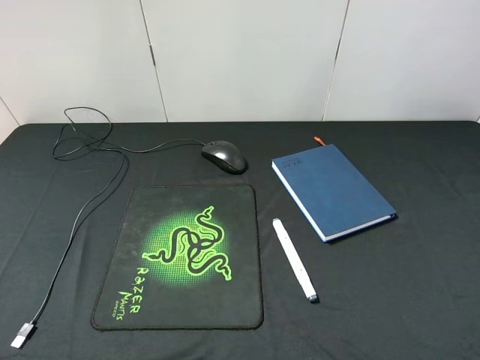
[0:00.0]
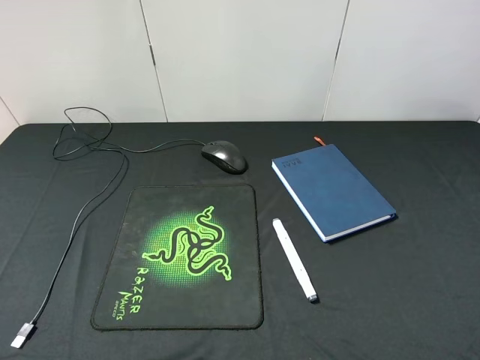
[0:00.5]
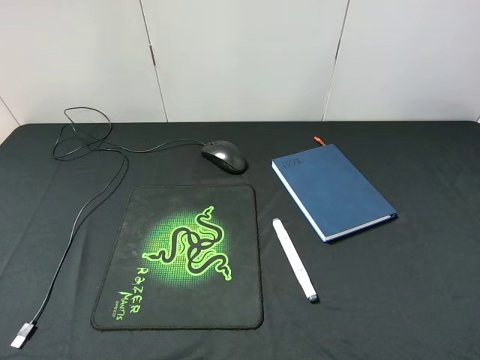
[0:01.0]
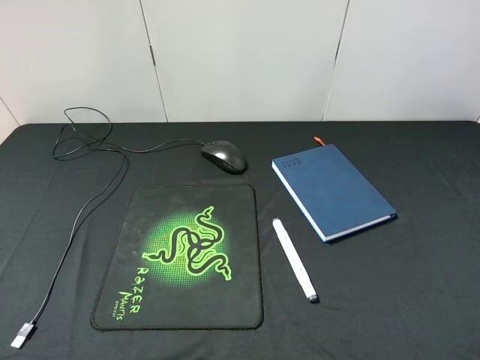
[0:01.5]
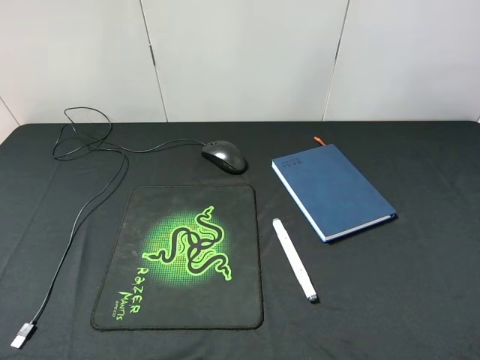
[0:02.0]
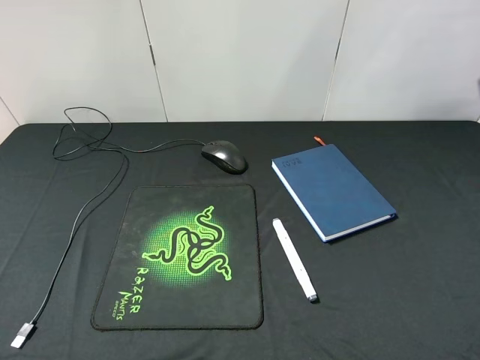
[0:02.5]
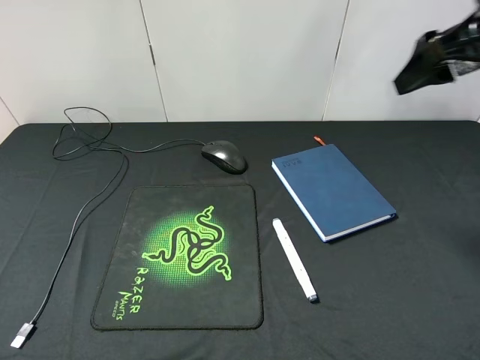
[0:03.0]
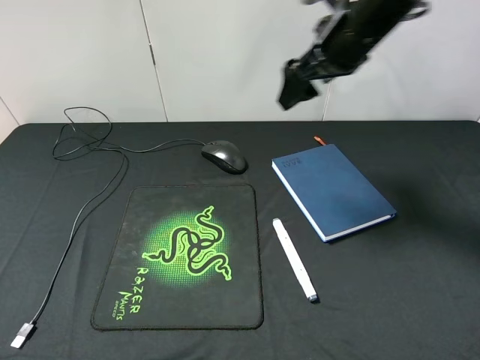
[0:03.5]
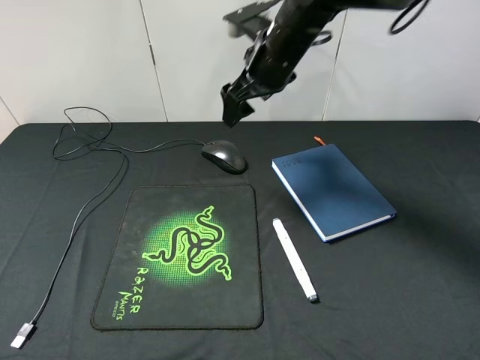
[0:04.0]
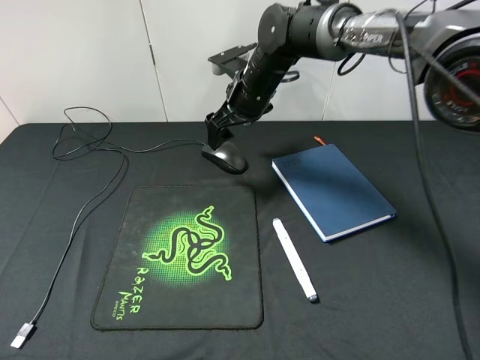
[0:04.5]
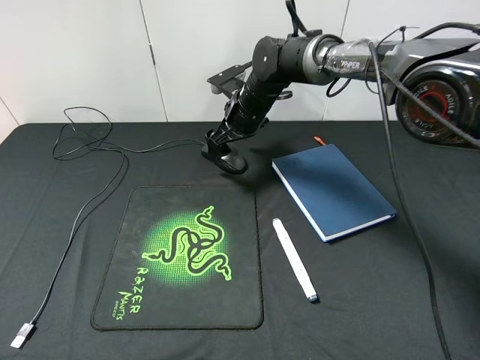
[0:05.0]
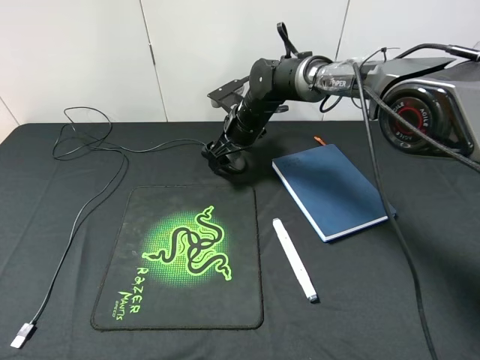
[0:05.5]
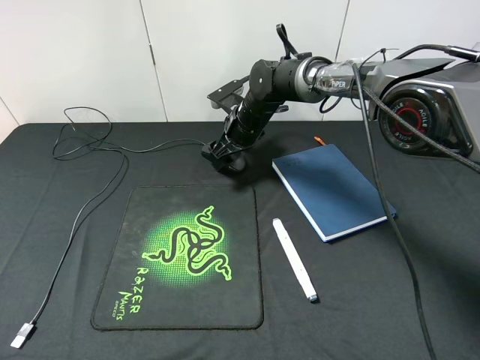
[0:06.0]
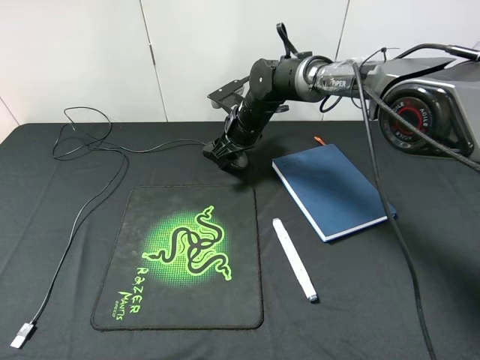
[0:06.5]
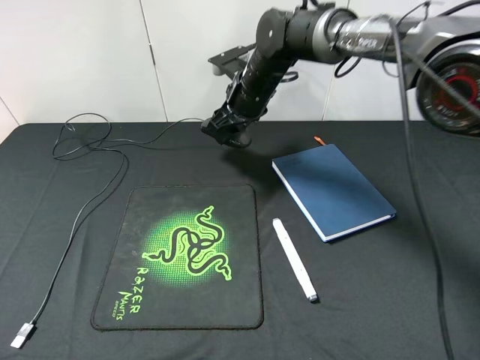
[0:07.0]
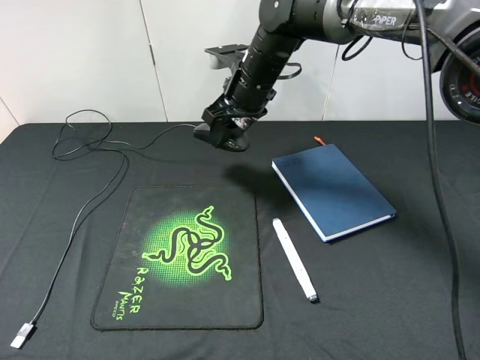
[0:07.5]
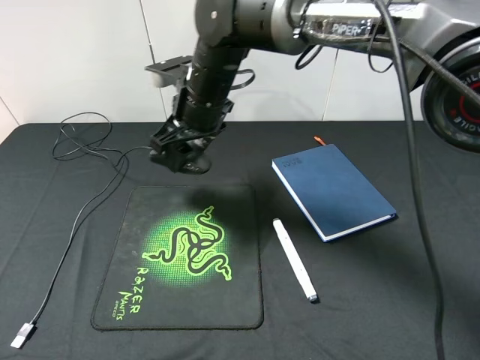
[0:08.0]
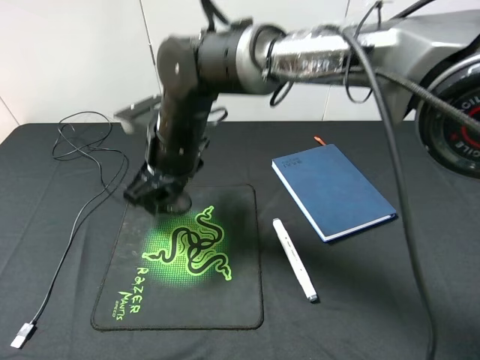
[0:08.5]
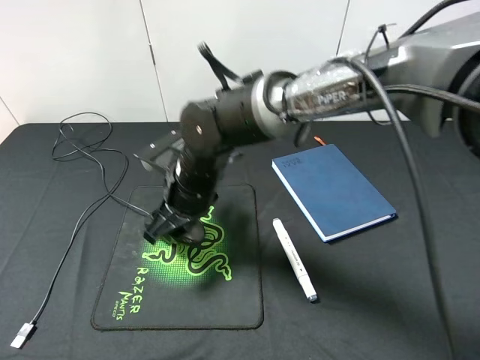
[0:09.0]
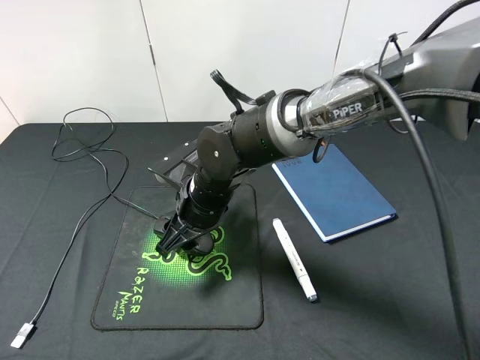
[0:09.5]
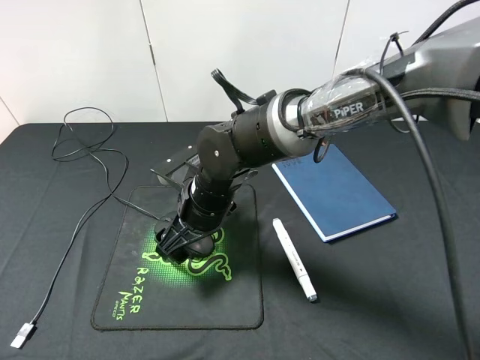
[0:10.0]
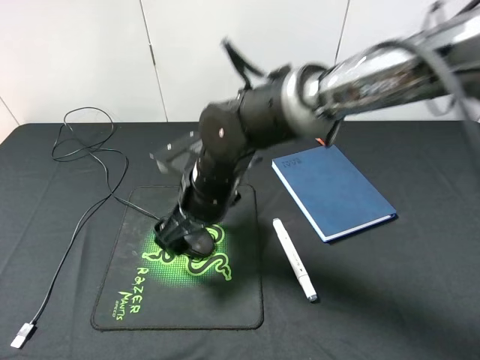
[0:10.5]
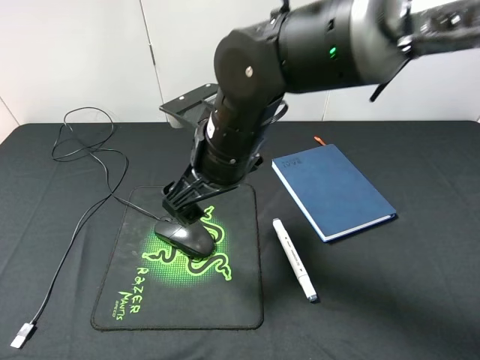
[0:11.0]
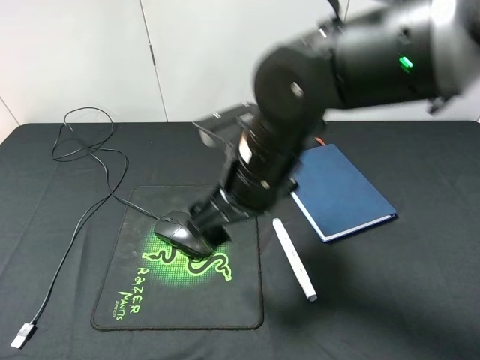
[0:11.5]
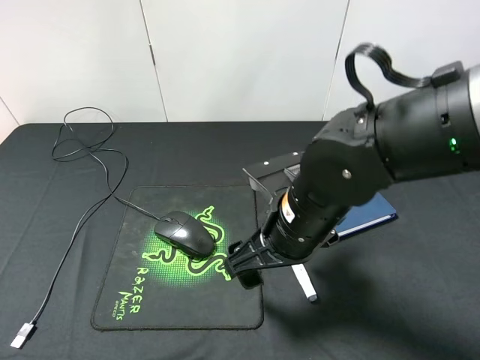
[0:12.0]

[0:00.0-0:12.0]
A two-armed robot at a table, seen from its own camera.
Step, 0:00.0 to 0:06.5: Pick up the mouse with right gripper.
Step, 0:07.0 to 0:10.5: Place the mouse on the mouse pad with right gripper.
0:02.0 to 0:04.0: The right gripper moves forward and to the left, some 40 cm.
0:04.0 to 0:06.0: The right gripper heads downward, covering approximately 15 cm.
0:06.0 to 0:08.0: The right gripper shifts approximately 15 cm backward, upward and to the left.
0:08.0 to 0:10.0: The right gripper moves downward and backward, about 15 cm, and opens its fingers.
0:10.0 to 0:12.0: The right gripper goes roughly 15 cm to the right, backward and upward.

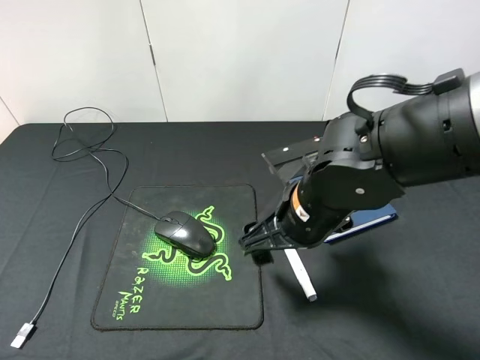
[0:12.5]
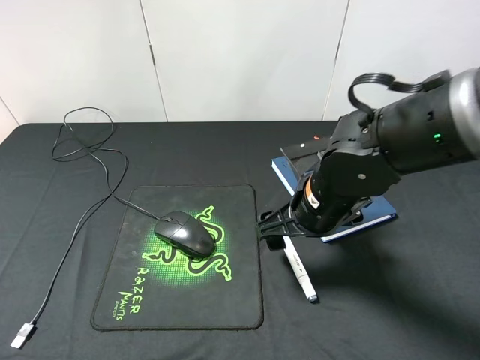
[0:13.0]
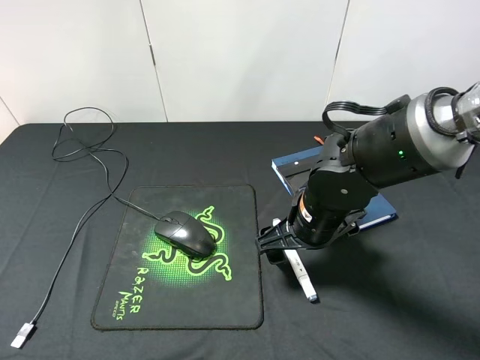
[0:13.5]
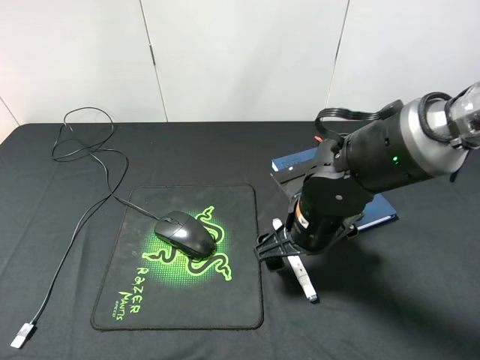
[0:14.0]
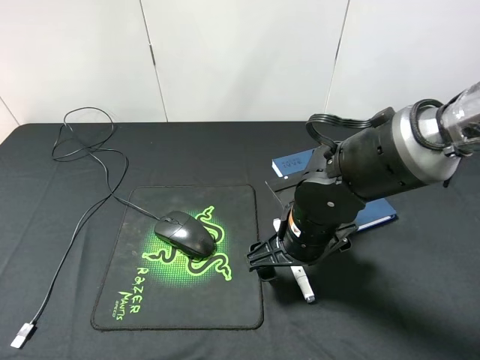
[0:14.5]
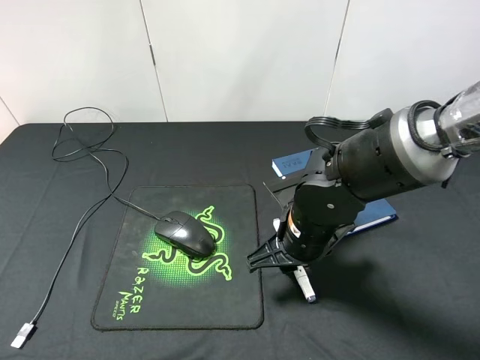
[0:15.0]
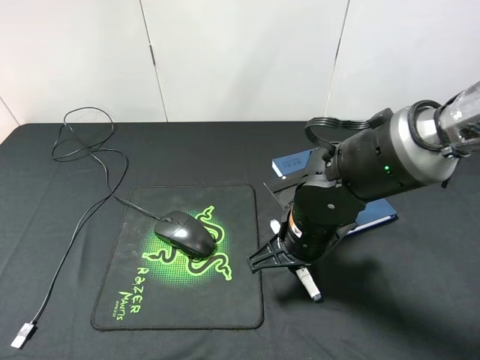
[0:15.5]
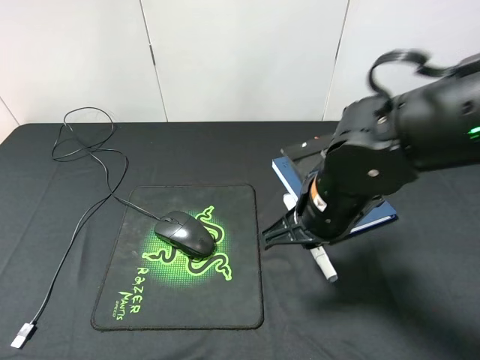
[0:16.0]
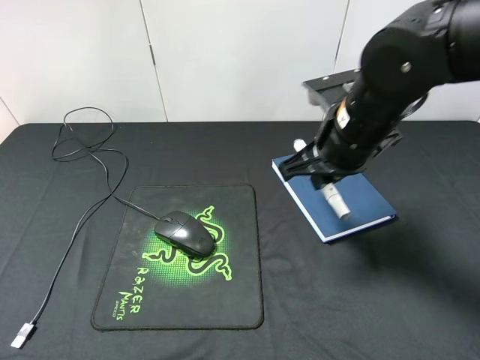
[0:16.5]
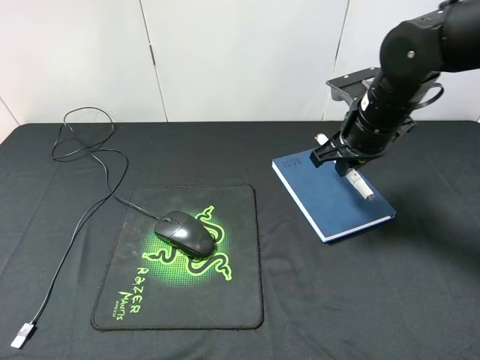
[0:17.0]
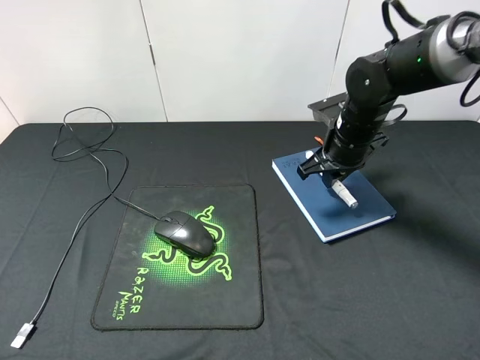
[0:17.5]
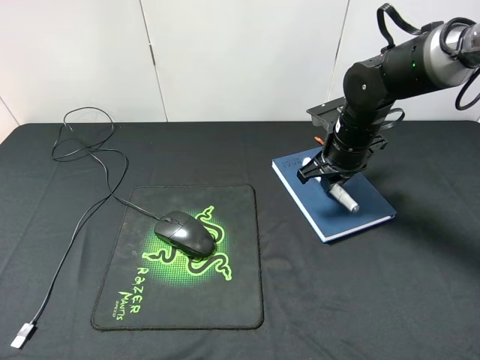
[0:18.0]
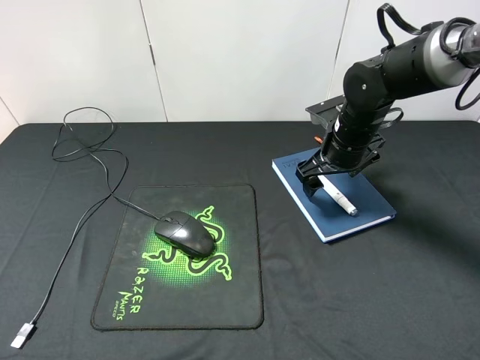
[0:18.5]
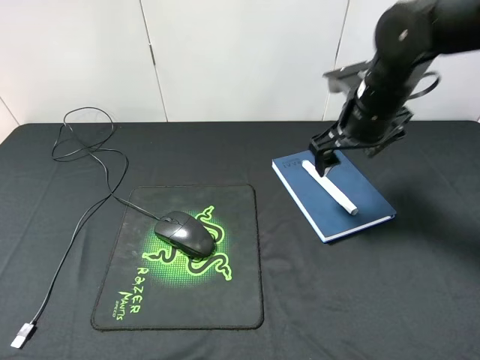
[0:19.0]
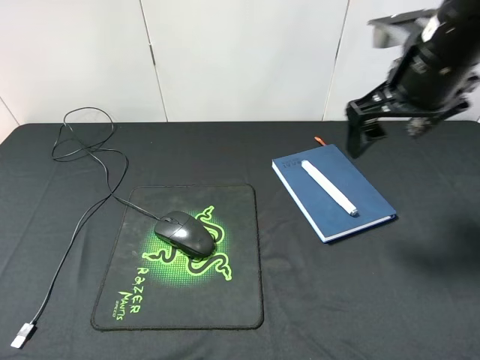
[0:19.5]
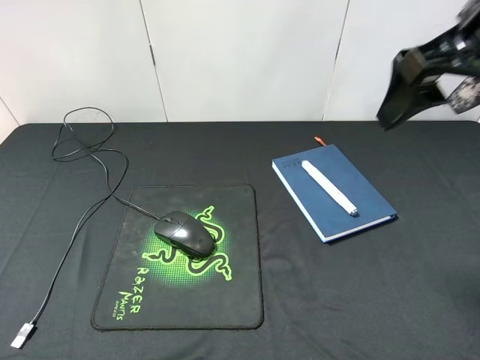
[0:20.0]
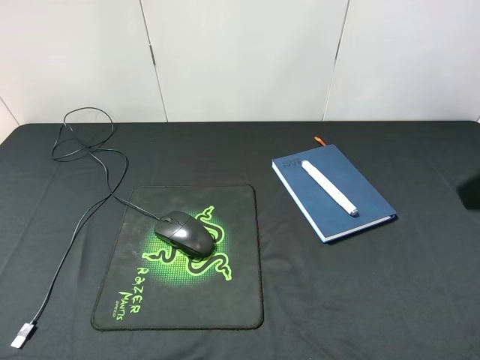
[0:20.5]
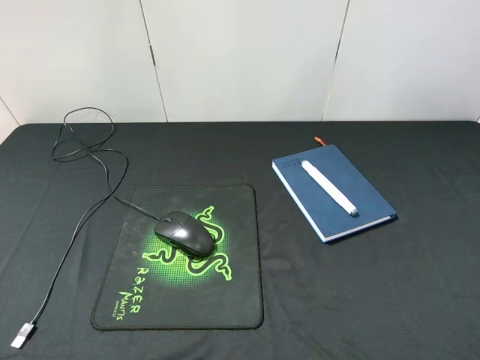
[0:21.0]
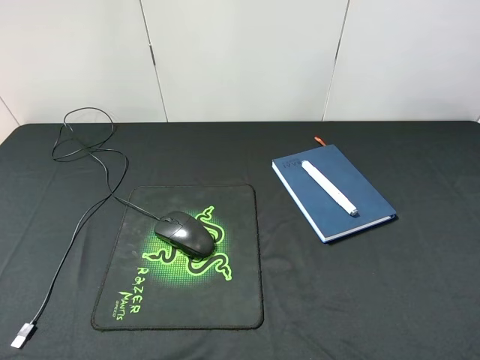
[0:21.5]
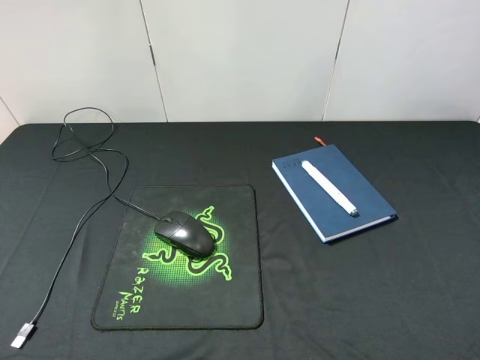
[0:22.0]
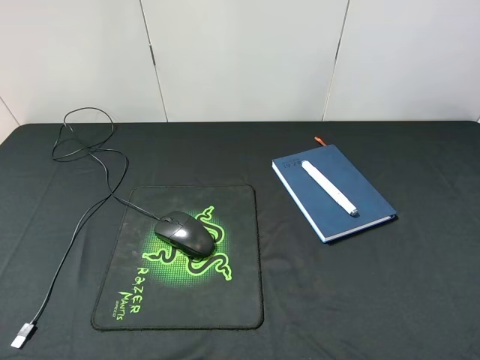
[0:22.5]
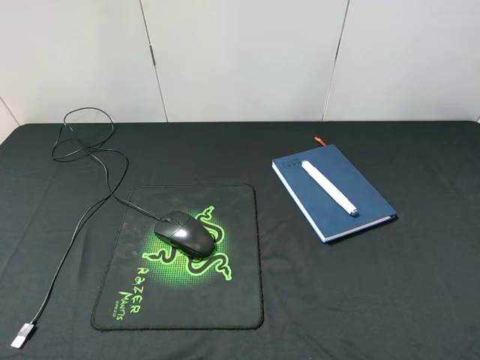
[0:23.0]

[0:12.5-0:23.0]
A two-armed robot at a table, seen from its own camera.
Step, 0:12.5 to 0:15.5: Pick up the marker pen with right gripper.
Step, 0:16.0 to 0:18.5: Place the marker pen on the notebook with right gripper.
0:12.5 to 0:14.5: There are only small adjustments of the grippers.
0:14.5 to 0:16.5: The right gripper shifts roughly 10 cm upward and forward, and closes up.
0:16.5 to 0:19.0: The right gripper shifts roughly 5 cm forward, and opens up.
0:19.0 to 0:21.0: The right gripper travels backward by approximately 30 cm.
